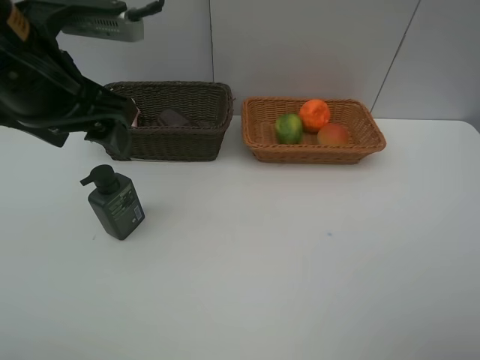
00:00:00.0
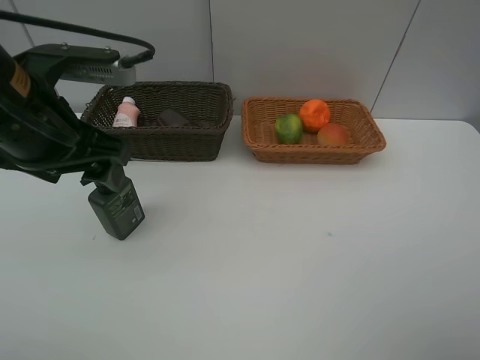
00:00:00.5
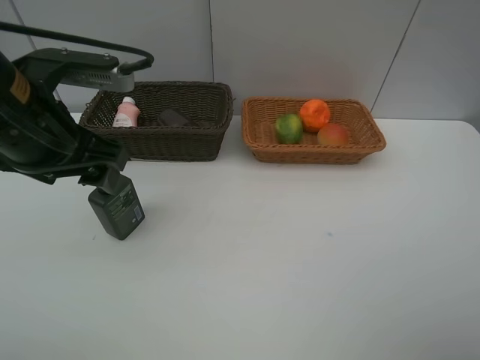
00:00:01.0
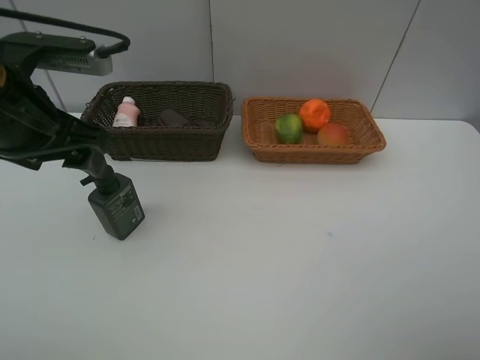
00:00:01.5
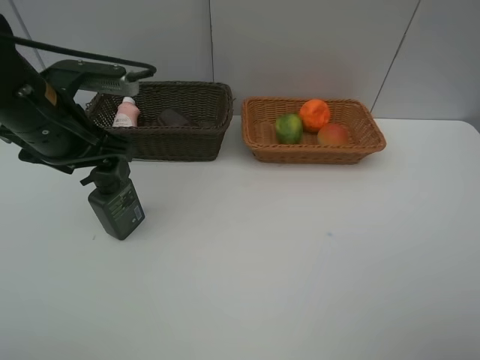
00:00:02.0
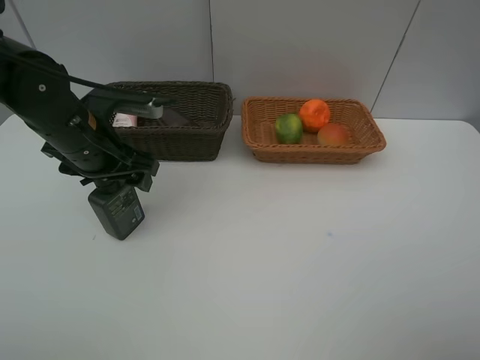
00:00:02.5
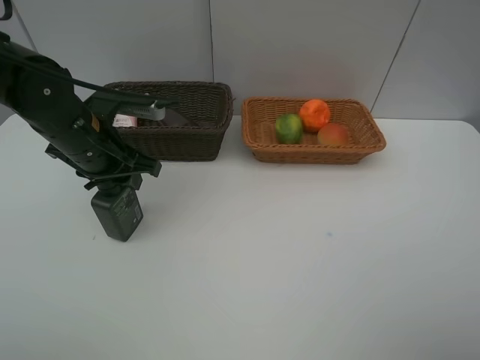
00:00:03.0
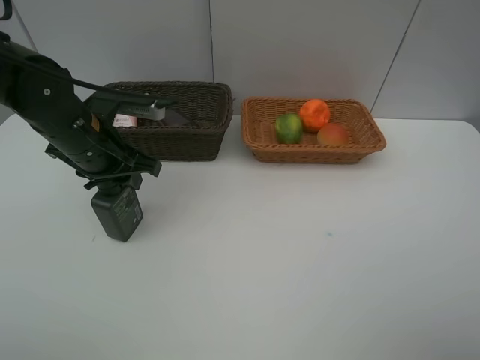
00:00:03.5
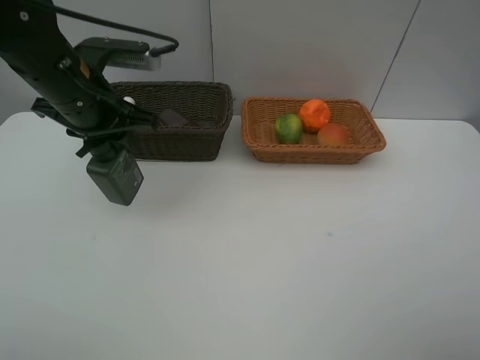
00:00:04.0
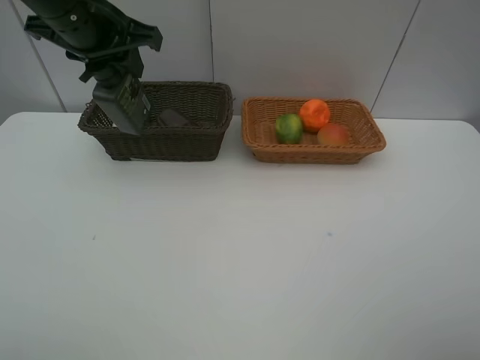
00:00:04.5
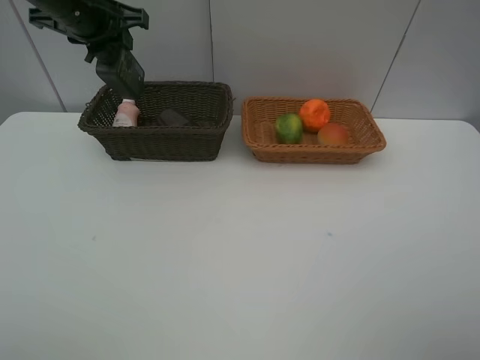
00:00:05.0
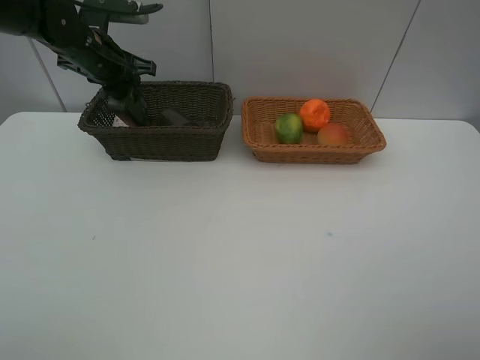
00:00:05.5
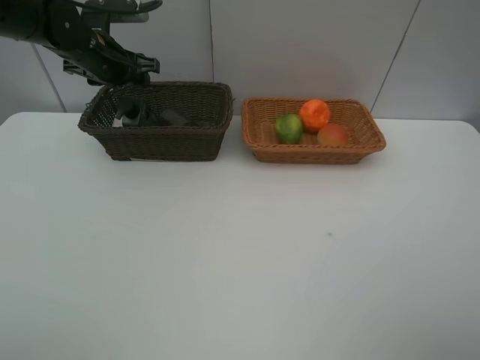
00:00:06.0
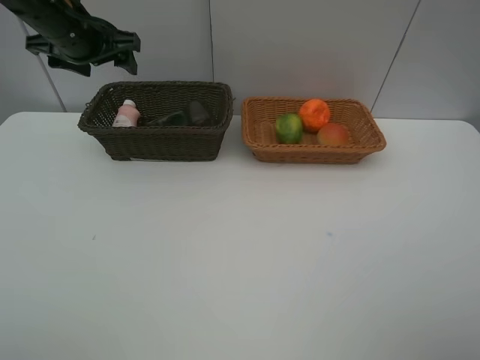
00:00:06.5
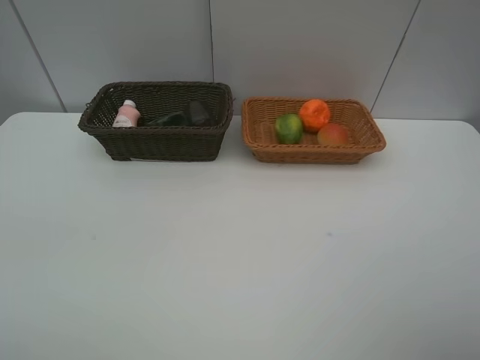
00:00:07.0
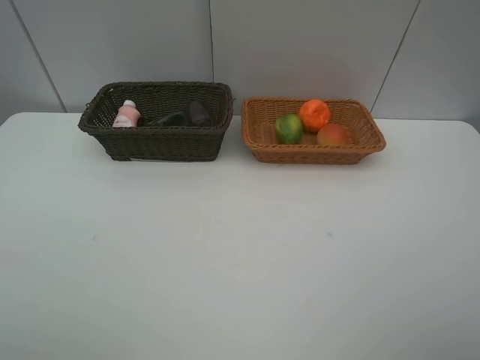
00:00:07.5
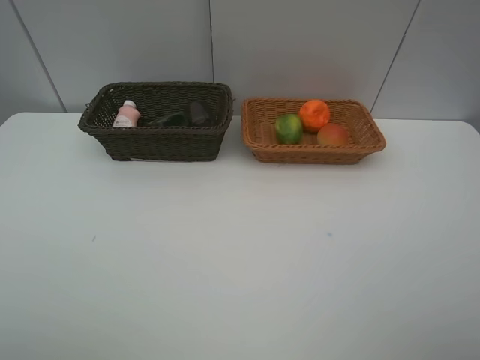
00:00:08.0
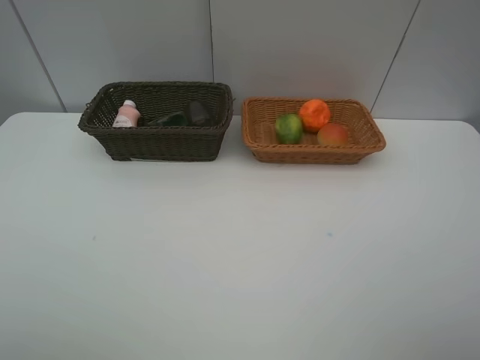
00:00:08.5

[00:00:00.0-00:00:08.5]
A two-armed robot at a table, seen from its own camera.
Task of the whole recording: place multiple objects separately in different baskets.
00:00:00.0 to 00:00:02.0: The left gripper heads downward, covering about 10 cm.
00:00:02.0 to 00:00:04.0: The left gripper changes place by roughly 5 cm, and closes.
00:00:04.0 to 00:00:06.5: The left gripper travels forward and to the left by approximately 10 cm, and opens.
00:00:06.5 to 00:00:08.5: The left gripper moves backward, some 40 cm.
